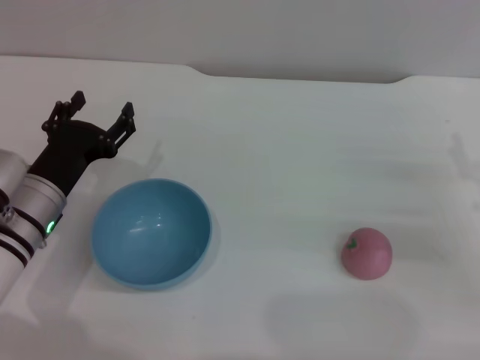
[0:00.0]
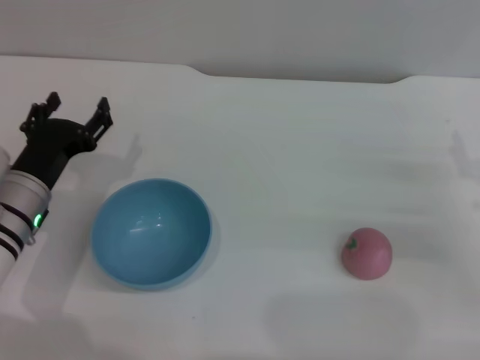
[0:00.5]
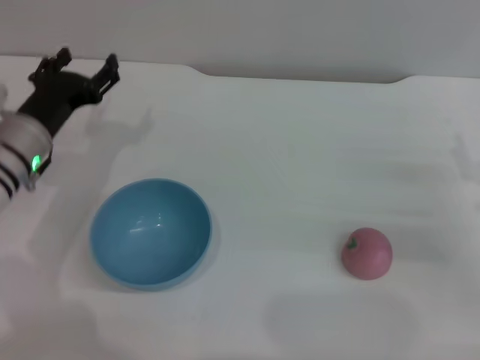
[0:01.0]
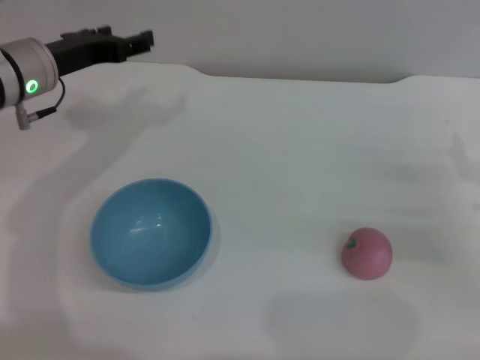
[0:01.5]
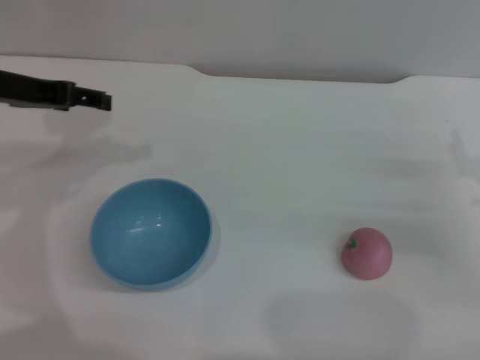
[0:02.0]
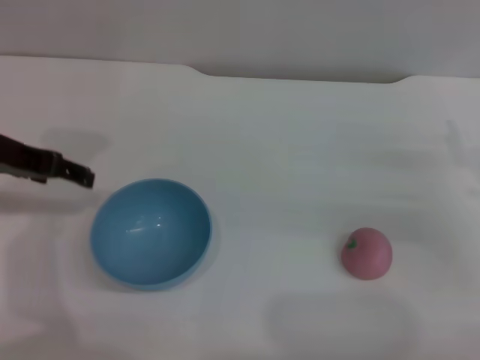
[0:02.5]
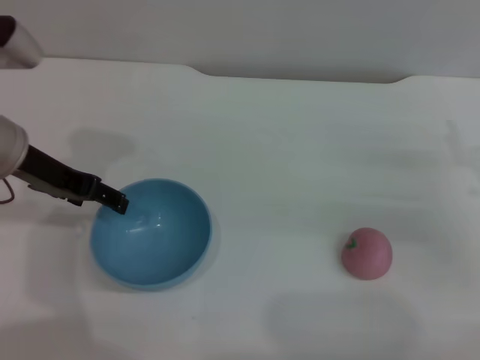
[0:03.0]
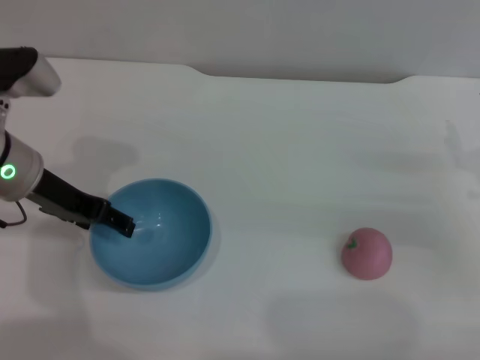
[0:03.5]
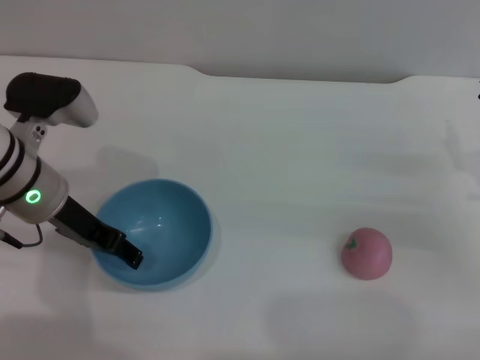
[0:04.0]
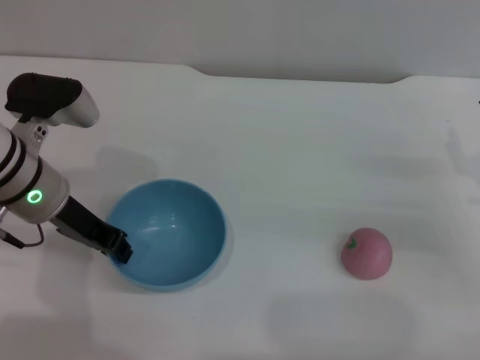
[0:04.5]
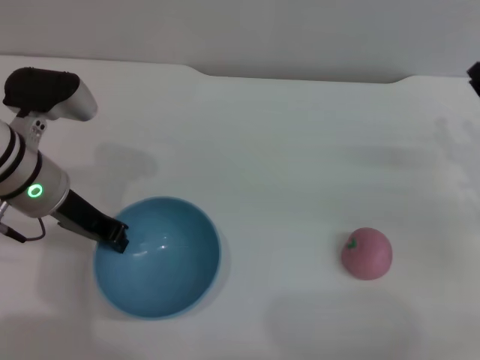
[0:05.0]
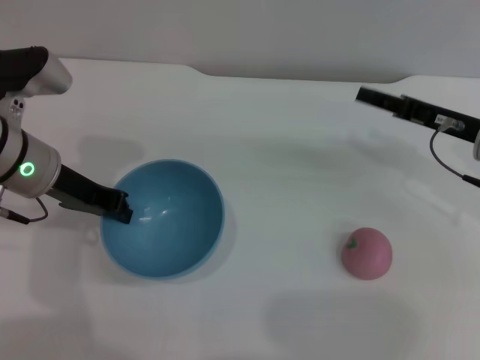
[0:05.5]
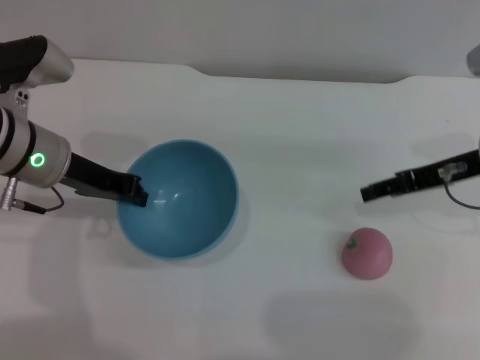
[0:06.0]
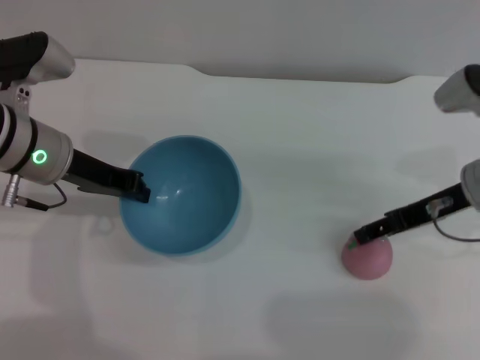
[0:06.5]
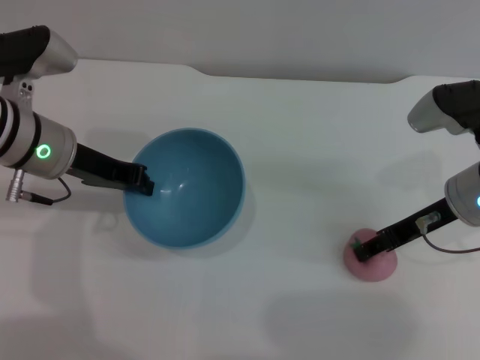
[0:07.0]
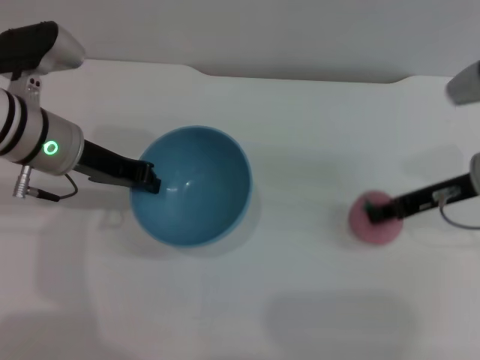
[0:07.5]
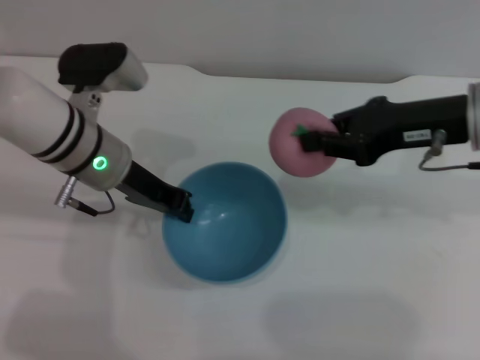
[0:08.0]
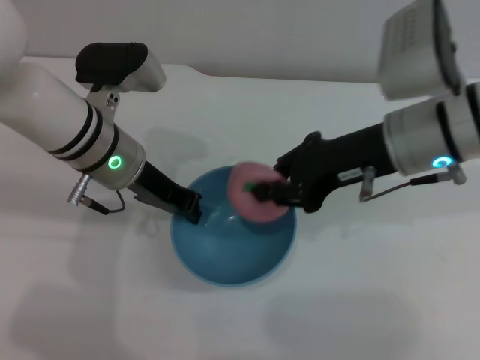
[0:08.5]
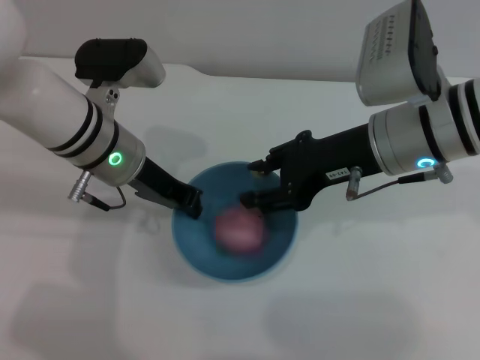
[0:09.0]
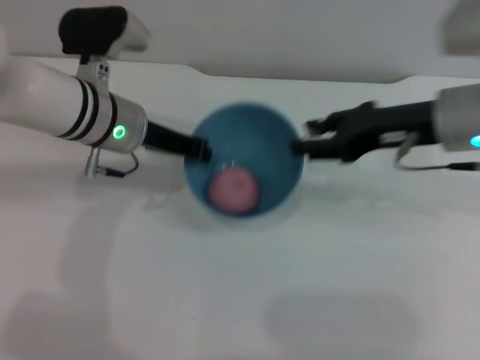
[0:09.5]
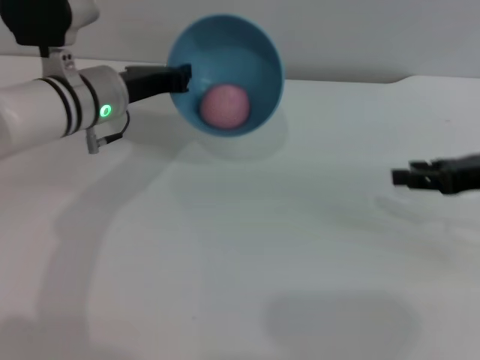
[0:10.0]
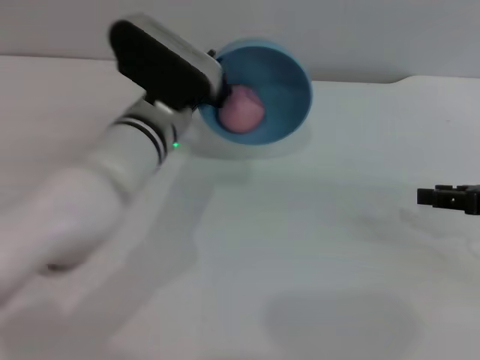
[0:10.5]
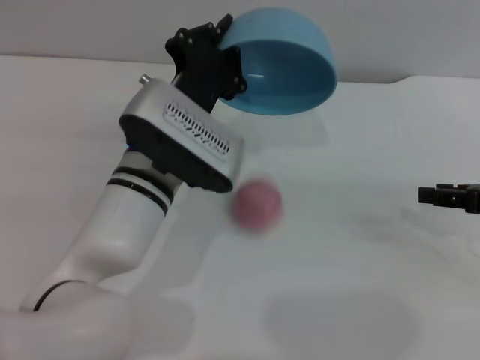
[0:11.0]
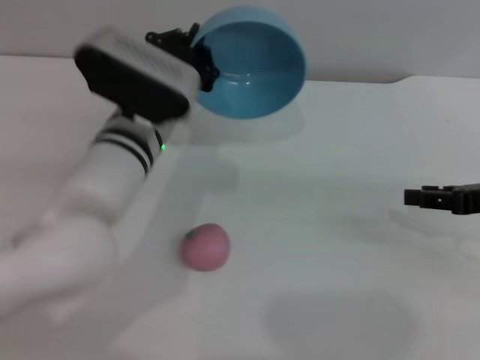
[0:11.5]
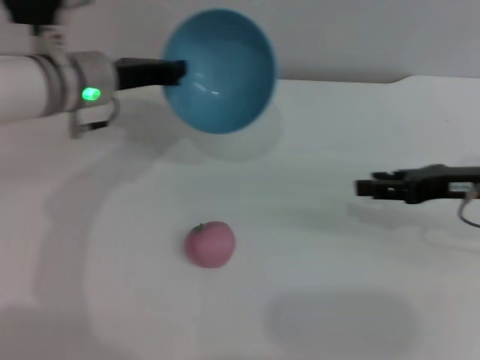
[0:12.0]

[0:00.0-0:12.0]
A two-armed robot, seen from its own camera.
Task of the whole recording: put the peach into the blue bowl and pour it out repeatedly.
Step, 0:00.0 to 0:06.0: Pick up the bowl with the left gripper.
Step, 0:06.5 to 0:07.5: Pick up the peach with the right gripper.
Step, 0:08.0 to 0:09.0: Place the peach into the bowl.
Step, 0:09.5 to 0:11.0: Pour the peach out of bowl.
0:00.0 to 0:02.0: The left gripper travels upward and forward by roughly 20 cm.
0:02.0 to 0:04.0: The left gripper travels downward and to the right by some 10 cm.
0:04.0 to 0:06.0: The right gripper heads upward, forward and to the left, covering roughly 10 cm; the left gripper closes.
0:06.0 to 0:08.0: The left gripper is displaced to the right by some 5 cm. The right gripper is displaced upward by approximately 5 cm, and closes its fingers.
0:08.0 to 0:10.0: The right gripper is displaced to the right and downward by about 10 cm, and opens.
0:10.0 to 0:12.0: The left gripper reaches some 10 cm to the right, then returns.

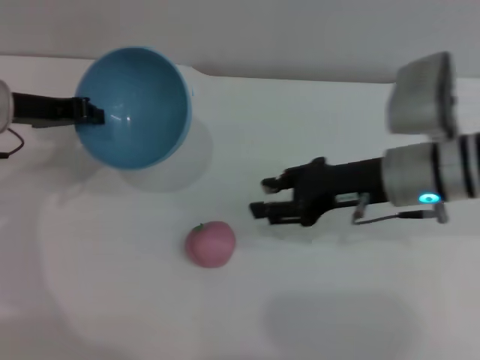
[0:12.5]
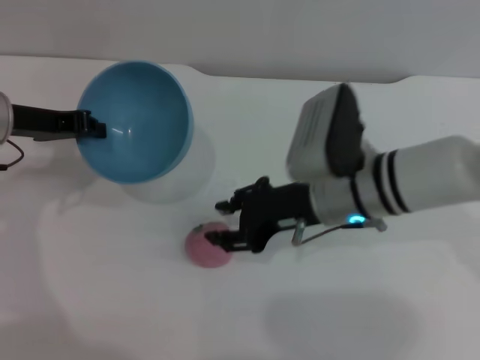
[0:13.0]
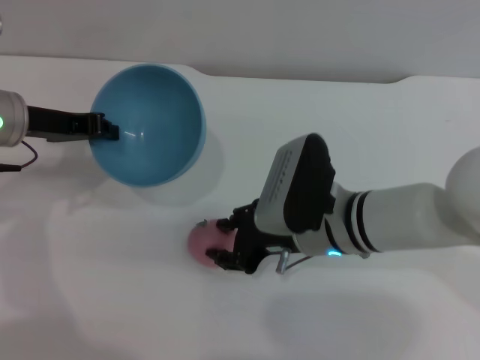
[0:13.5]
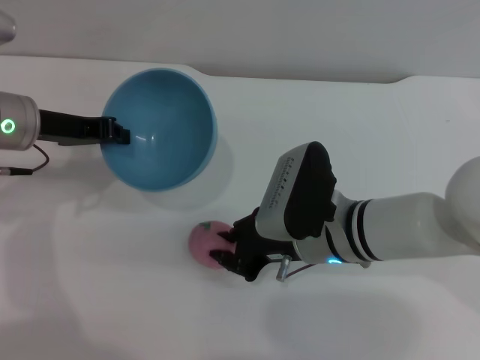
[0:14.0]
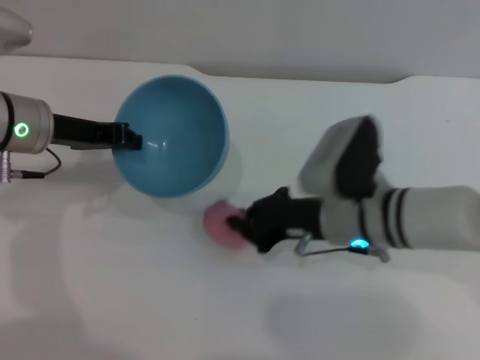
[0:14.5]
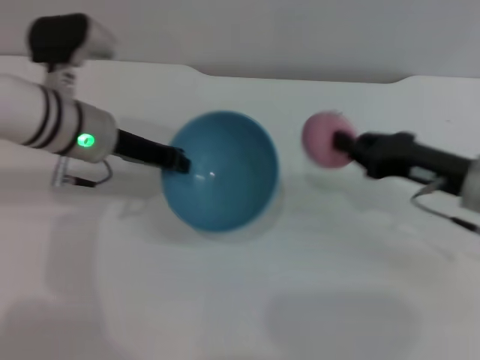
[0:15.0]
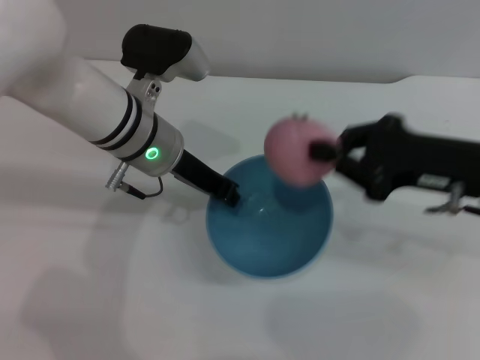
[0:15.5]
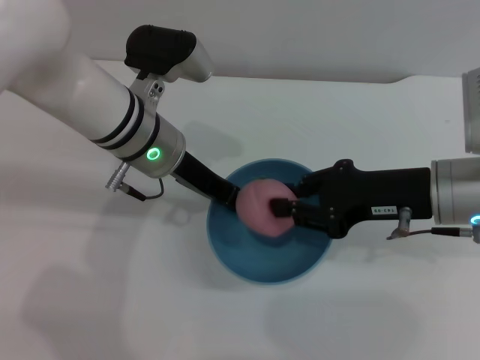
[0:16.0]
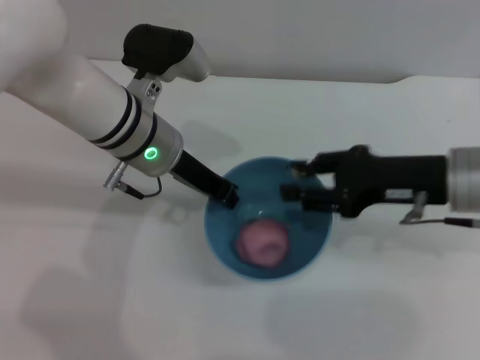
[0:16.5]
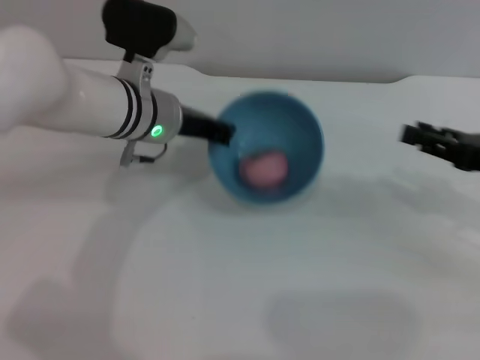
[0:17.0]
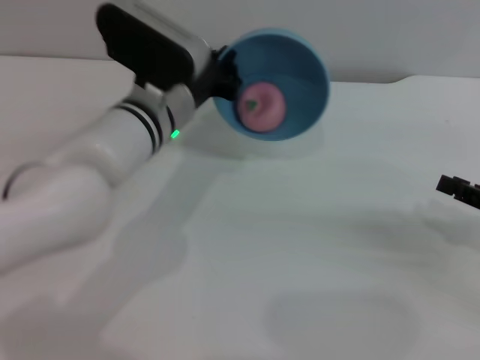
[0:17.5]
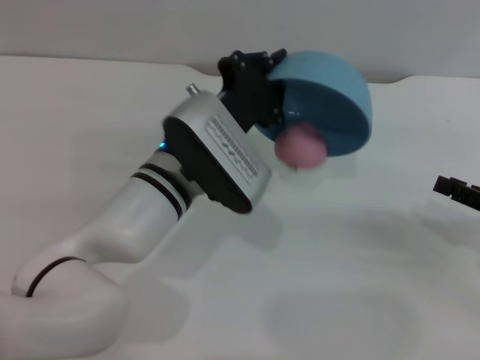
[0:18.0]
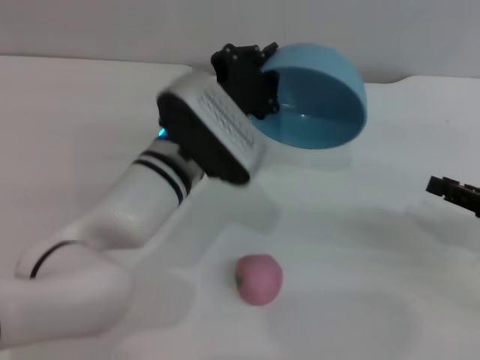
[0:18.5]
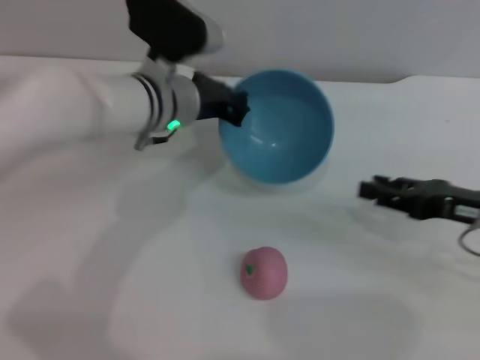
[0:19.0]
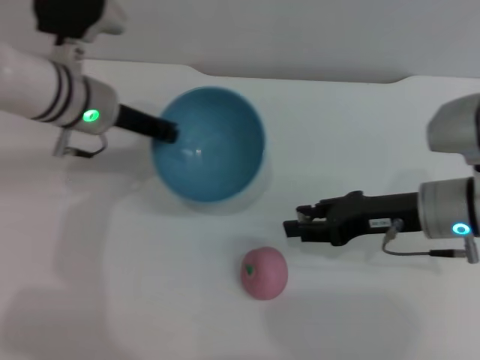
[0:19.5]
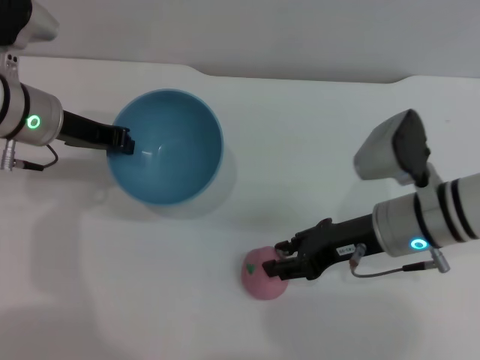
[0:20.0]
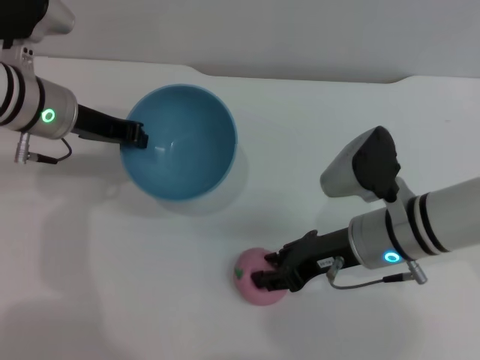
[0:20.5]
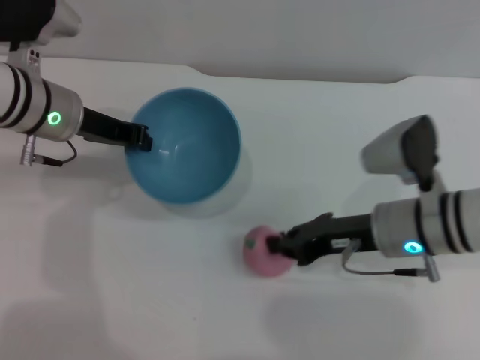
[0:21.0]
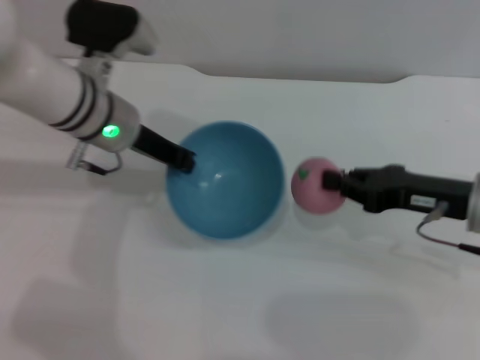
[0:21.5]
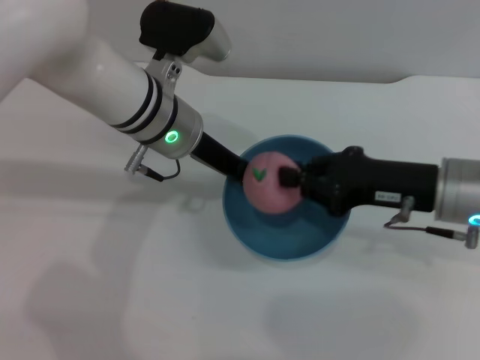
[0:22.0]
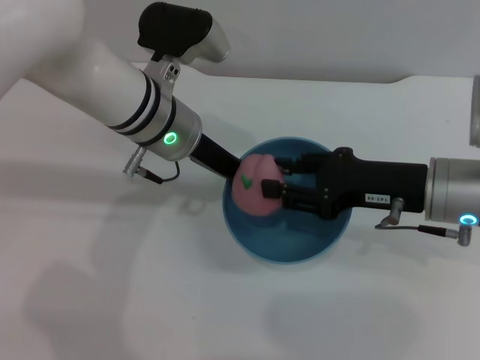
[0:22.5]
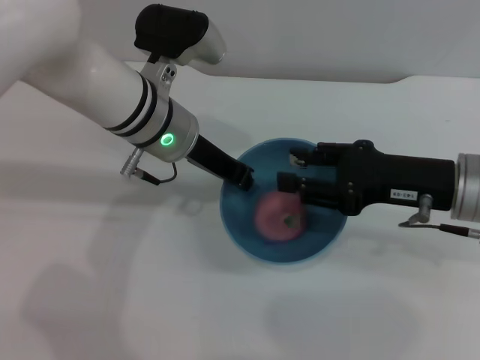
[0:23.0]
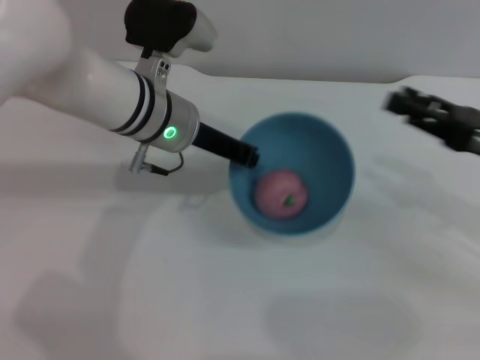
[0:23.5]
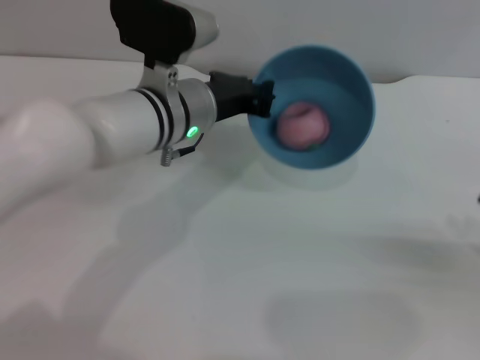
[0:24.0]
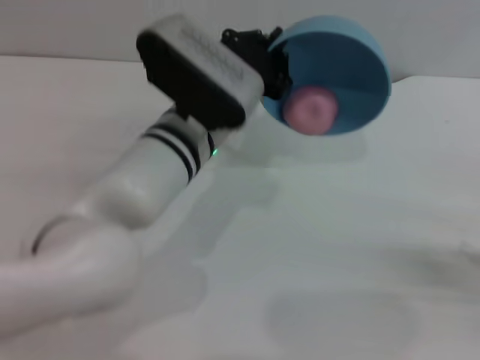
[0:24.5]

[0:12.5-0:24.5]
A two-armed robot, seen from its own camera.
Task of the whole recording: put the peach into the blue bowl and pour it out repeatedly.
Step, 0:12.5 to 0:14.5: Pick up the peach with the right gripper.
Step, 0:15.0 to 0:16.5: Place the peach into the bowl.
Step, 0:17.0 to 0:18.0: Pour the peach out of bowl.
Step, 0:18.5 to 0:21.0: Pick up the peach with the right gripper.
Step, 0:21.5 to 0:22.5: Place the peach into the bowl.
0:12.5 to 0:14.5: The right gripper shifts by roughly 5 cm, and closes up.
0:14.5 to 0:16.5: The right gripper moves to the right and upward, roughly 10 cm, and opens up. Meanwhile the left gripper goes approximately 15 cm to the right.
0:16.5 to 0:18.5: The left gripper ends up about 5 cm from where it was. Meanwhile the right gripper heads to the right and downward, covering approximately 15 cm.
0:18.5 to 0:20.5: The grippers both shift to the left by about 20 cm.
0:20.5 to 0:22.5: The left gripper shifts some 10 cm to the right. Meanwhile the right gripper heads upward and to the right, covering some 10 cm, and closes and opens again.
0:22.5 to 0:24.5: The right gripper is displaced to the right and backward by approximately 20 cm; the left gripper ends up about 5 cm from where it was.

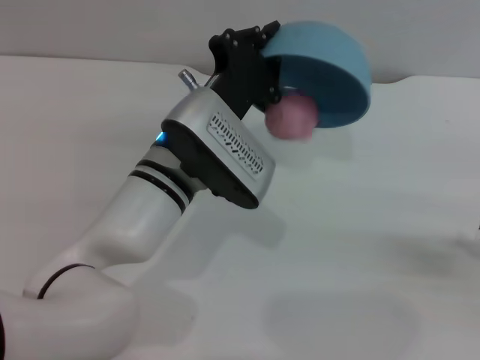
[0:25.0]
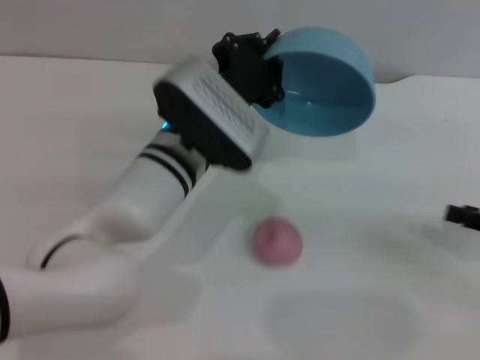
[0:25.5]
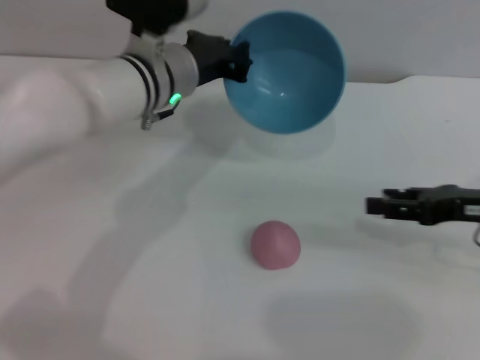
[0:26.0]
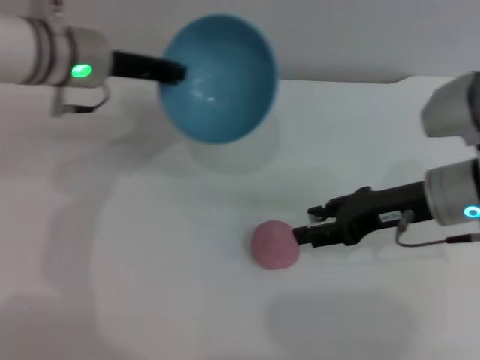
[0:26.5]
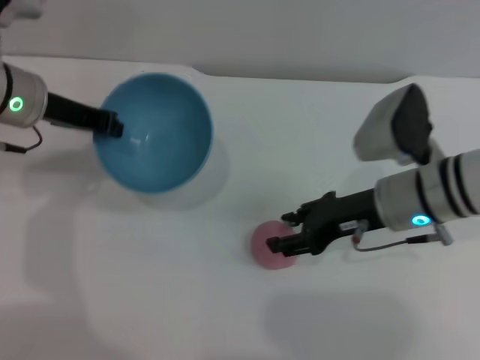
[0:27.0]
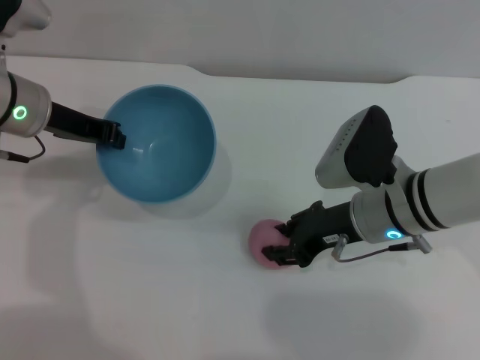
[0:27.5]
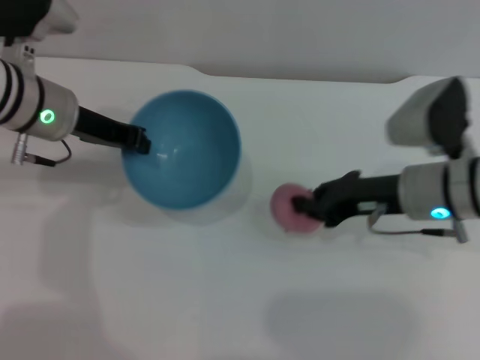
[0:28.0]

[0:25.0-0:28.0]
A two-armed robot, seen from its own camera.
Task of the whole recording: put the peach into the blue bowl and pour it out repeatedly.
0:25.0 to 0:26.5: The right gripper travels to the left and forward by some 20 cm, while the left gripper shifts some 20 cm to the left, forward and upward.
0:26.5 to 0:28.0: The right gripper closes up.
